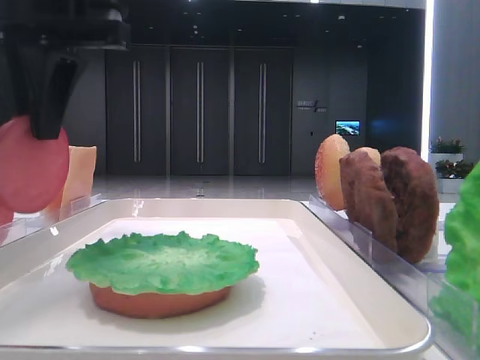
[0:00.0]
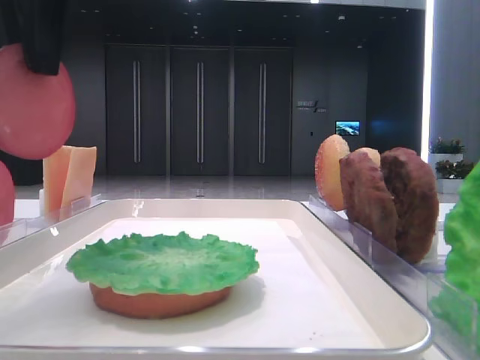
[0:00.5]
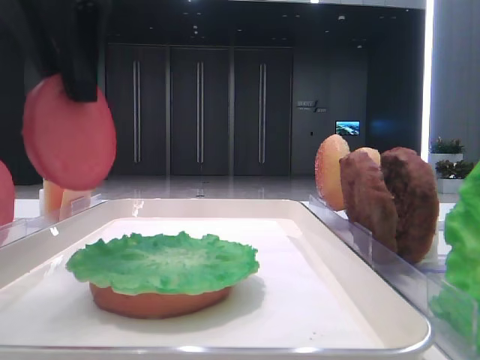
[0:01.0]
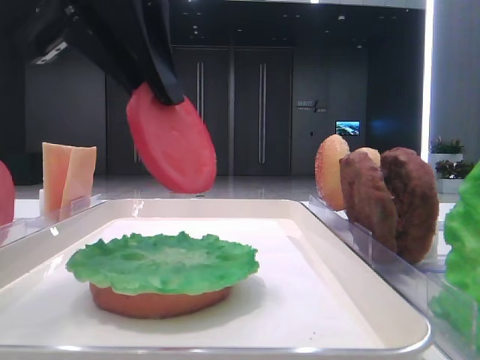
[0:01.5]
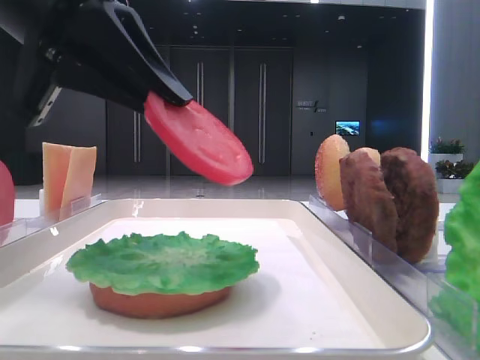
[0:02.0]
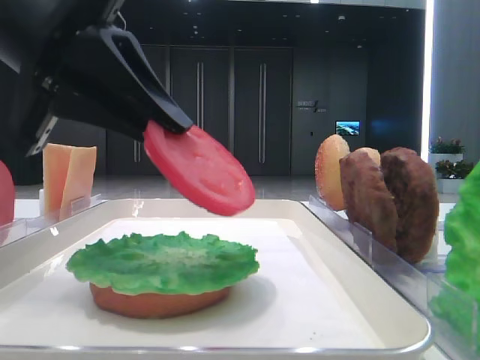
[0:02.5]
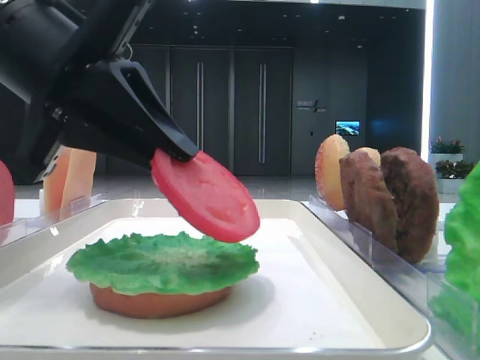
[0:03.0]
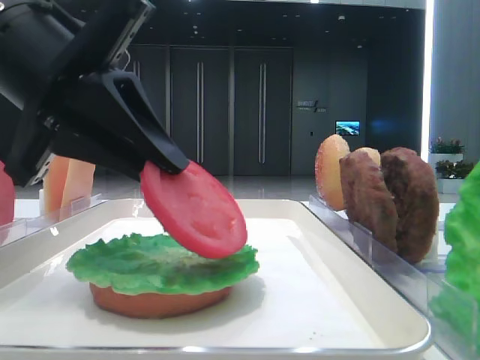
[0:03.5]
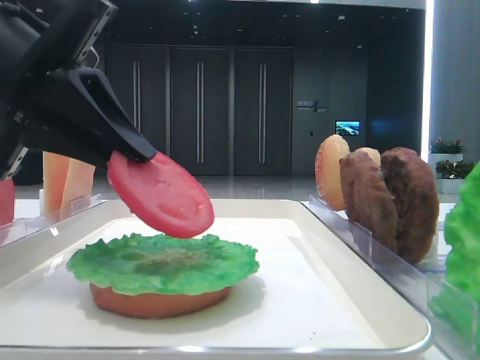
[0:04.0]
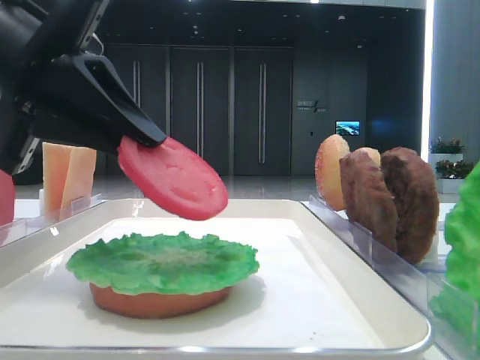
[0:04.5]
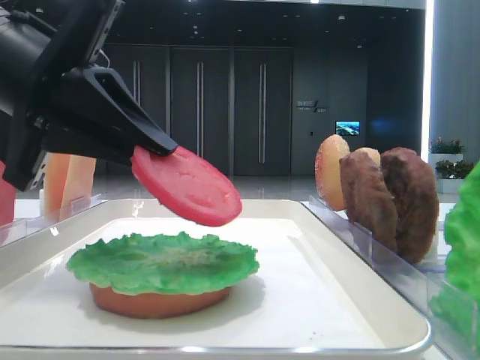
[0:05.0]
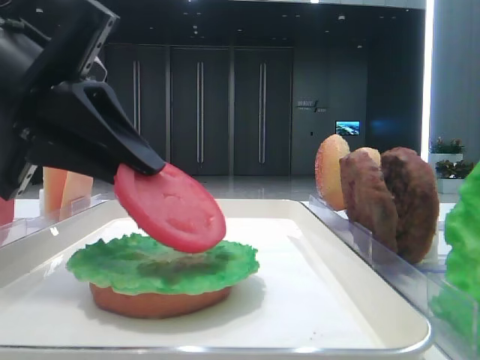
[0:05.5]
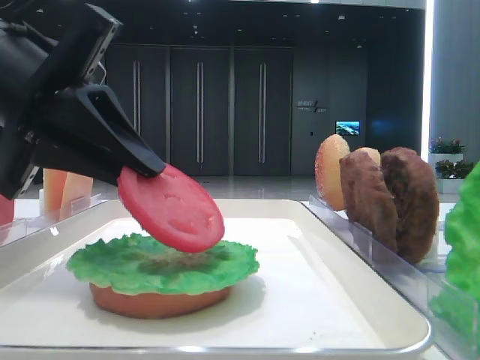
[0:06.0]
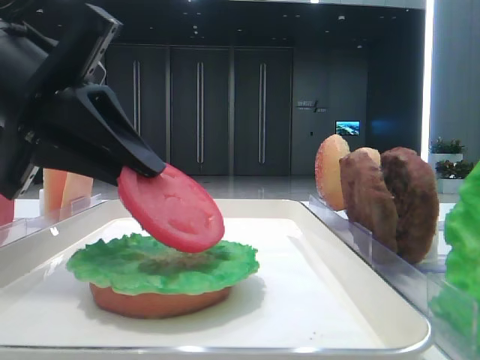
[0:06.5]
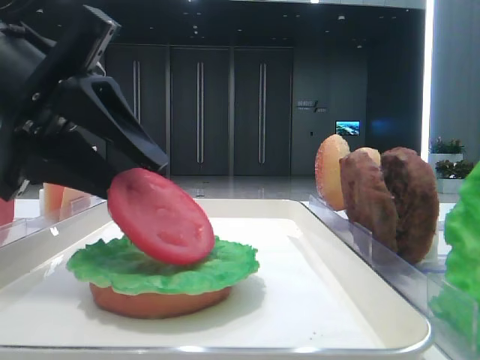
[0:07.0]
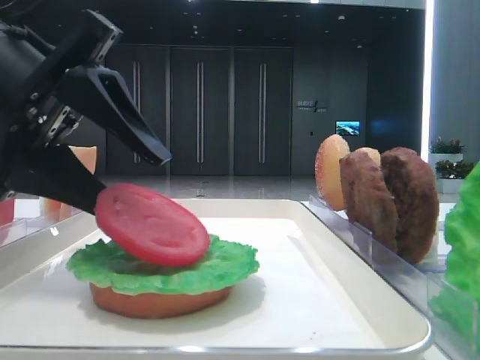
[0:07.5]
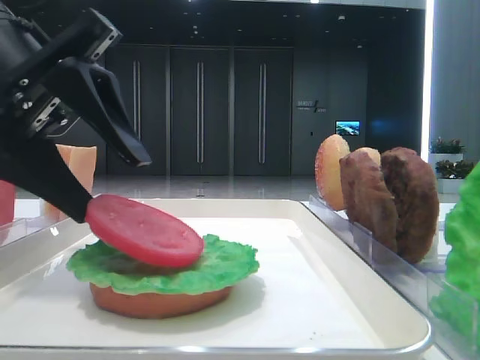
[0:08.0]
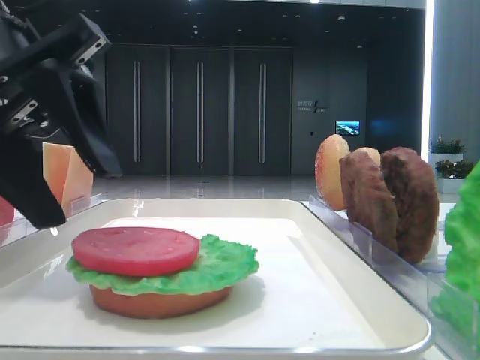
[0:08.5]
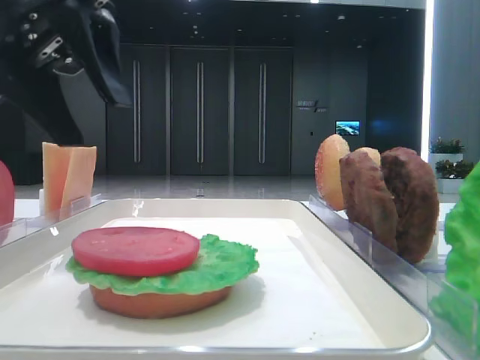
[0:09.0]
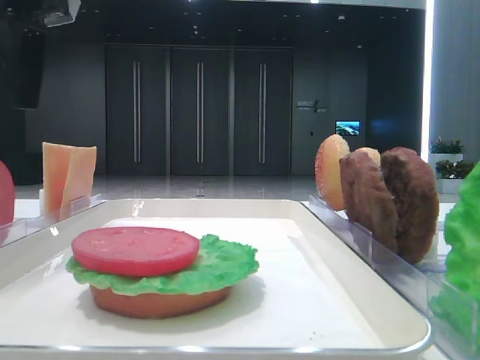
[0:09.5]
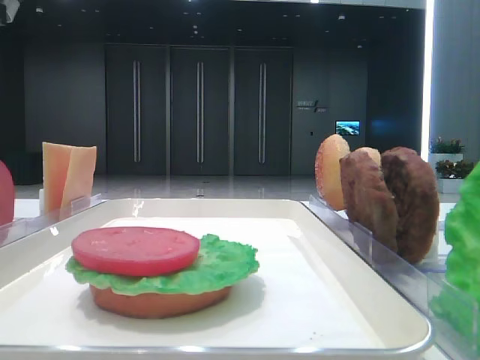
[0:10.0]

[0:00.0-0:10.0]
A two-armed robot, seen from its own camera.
Step, 0:00.0 to 0:08.0: Place the tomato slice on the lettuce leaf with the left hand.
0:00.0 to 0:02.0: The left gripper is displaced backward by approximately 5 cm.
0:02.0 to 0:06.0: The grippers move only a little.
0:06.0 to 0:08.0: The left gripper opens up.
0:08.0 to 0:10.0: The left gripper shifts some 15 cm upward, to the left and forward.

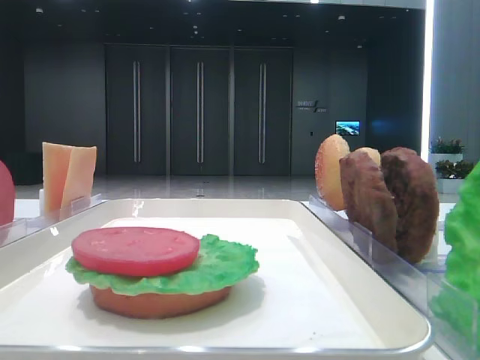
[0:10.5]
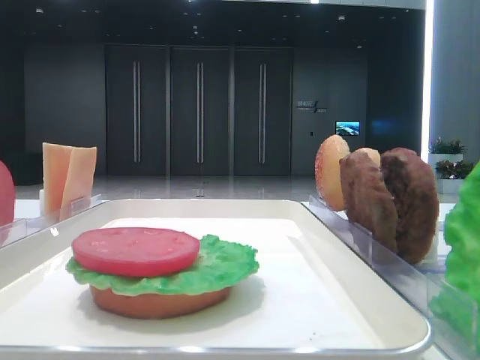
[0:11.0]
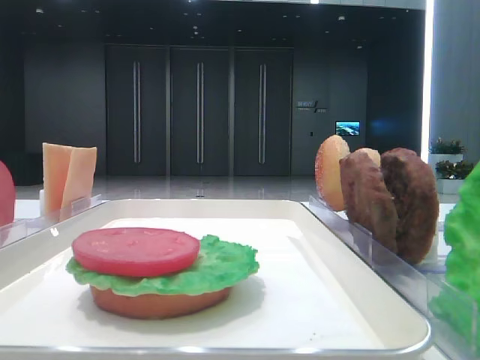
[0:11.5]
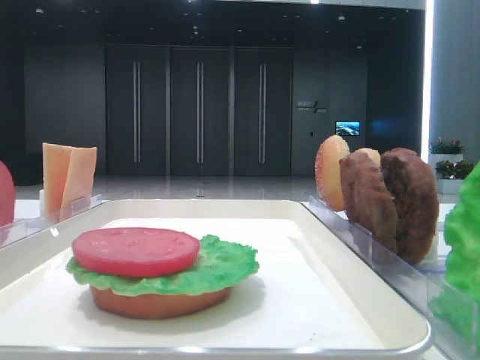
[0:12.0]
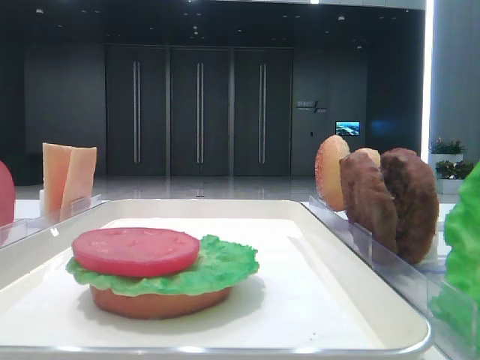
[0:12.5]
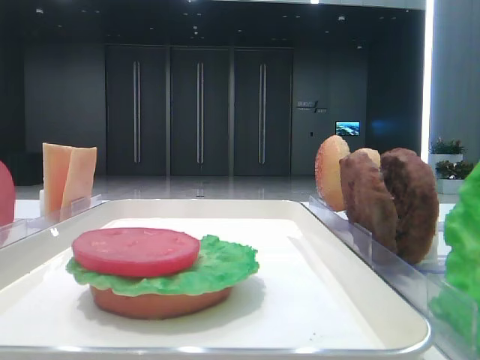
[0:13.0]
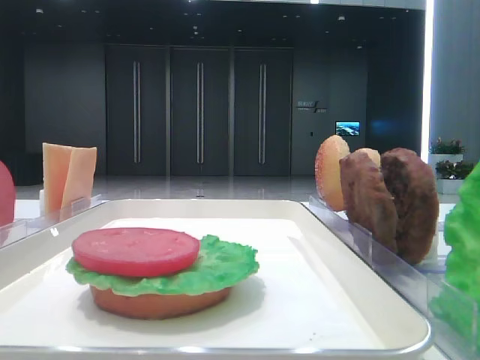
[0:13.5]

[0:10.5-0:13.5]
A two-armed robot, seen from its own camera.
0:12.0 to 0:13.5: Both grippers stay about where they are.

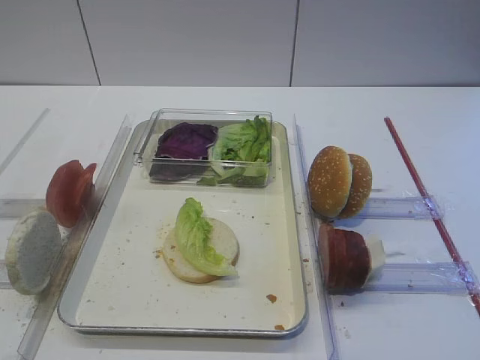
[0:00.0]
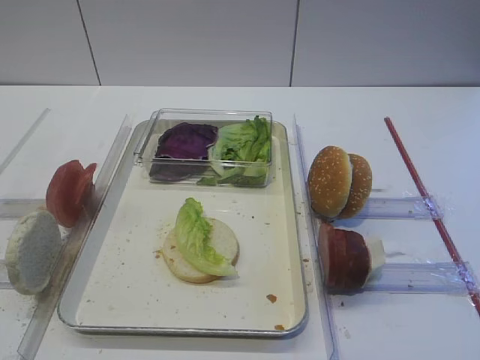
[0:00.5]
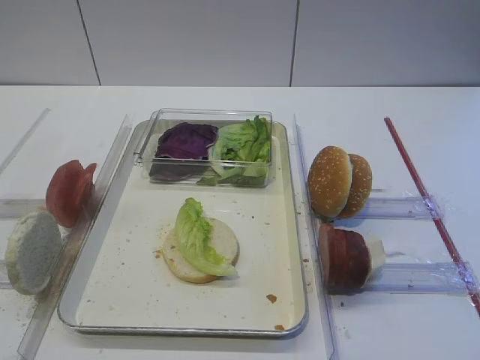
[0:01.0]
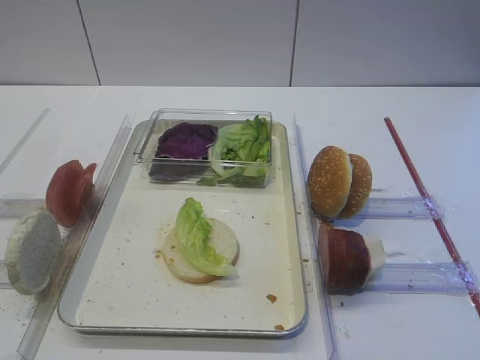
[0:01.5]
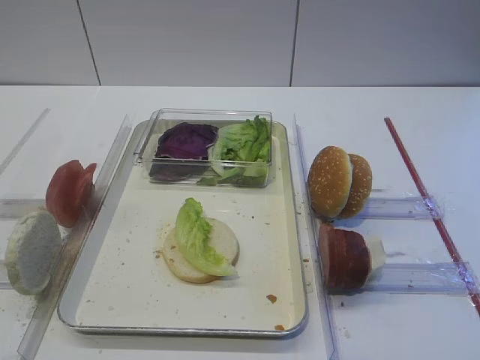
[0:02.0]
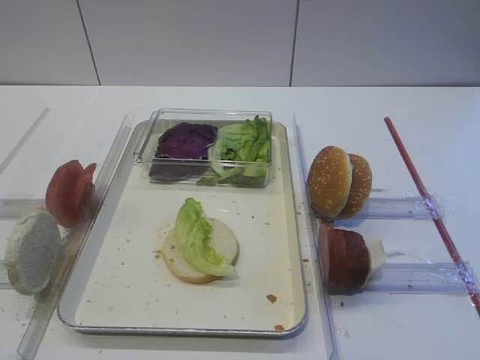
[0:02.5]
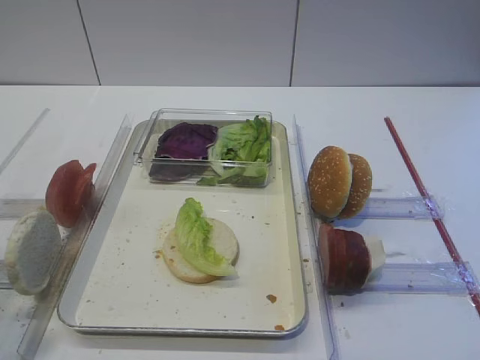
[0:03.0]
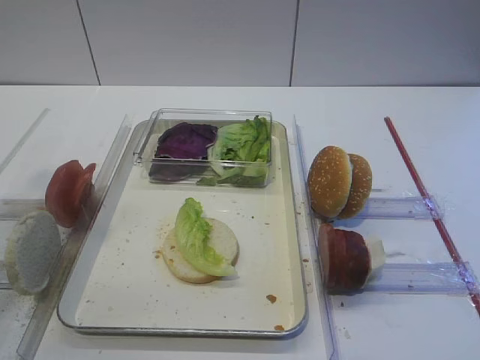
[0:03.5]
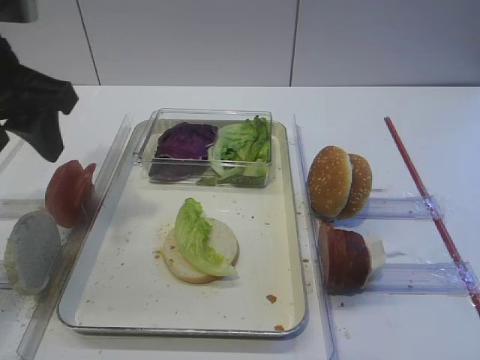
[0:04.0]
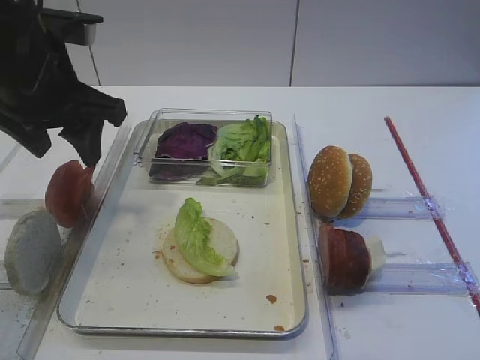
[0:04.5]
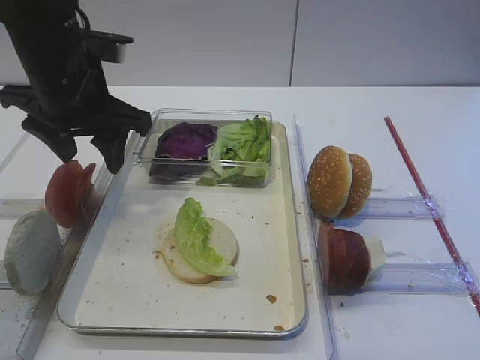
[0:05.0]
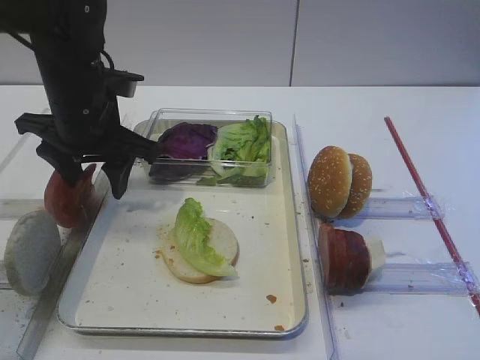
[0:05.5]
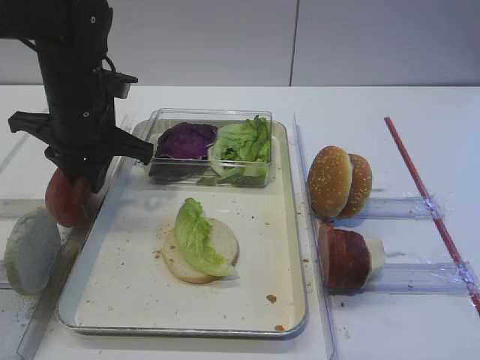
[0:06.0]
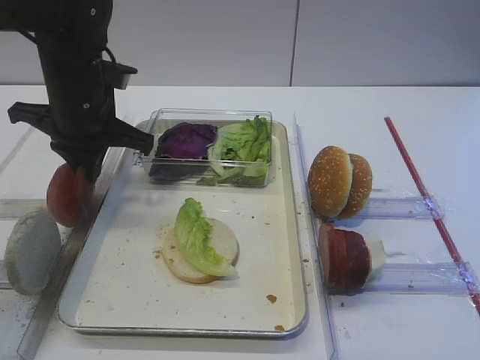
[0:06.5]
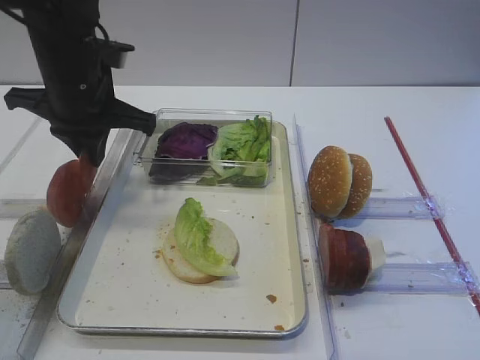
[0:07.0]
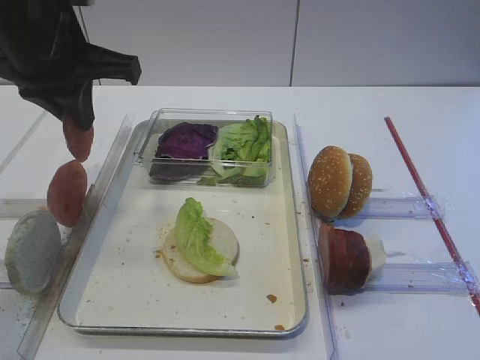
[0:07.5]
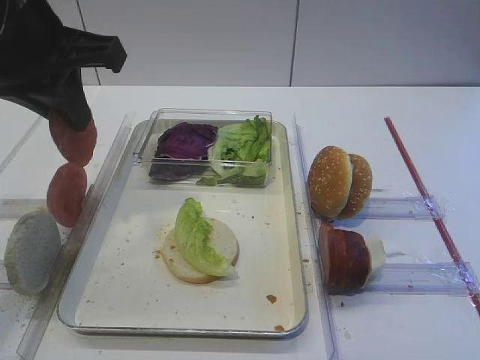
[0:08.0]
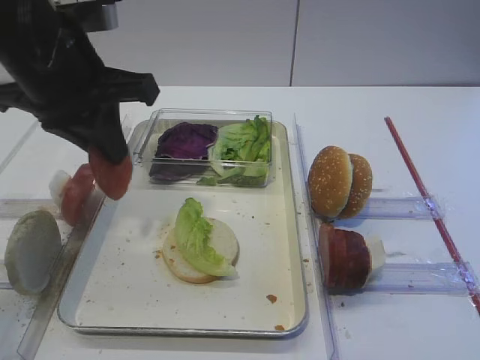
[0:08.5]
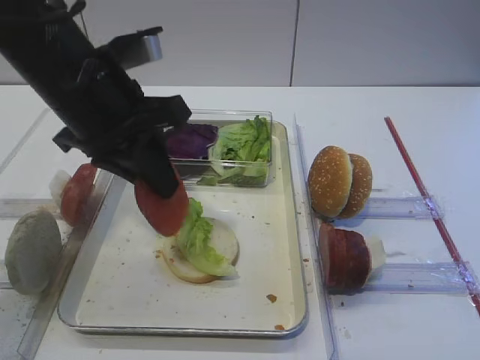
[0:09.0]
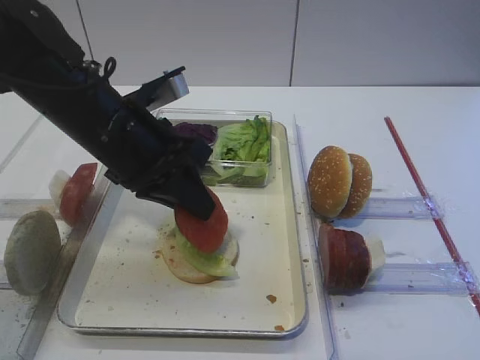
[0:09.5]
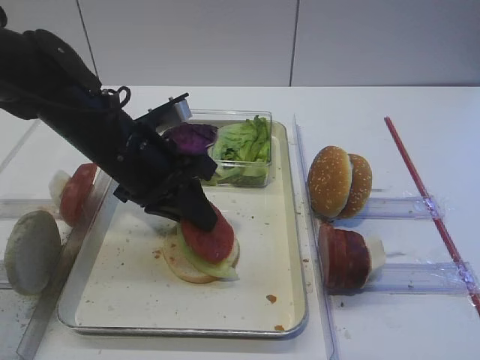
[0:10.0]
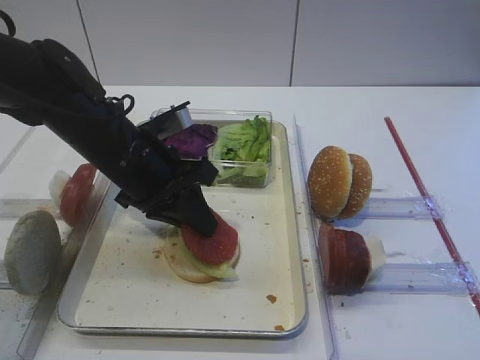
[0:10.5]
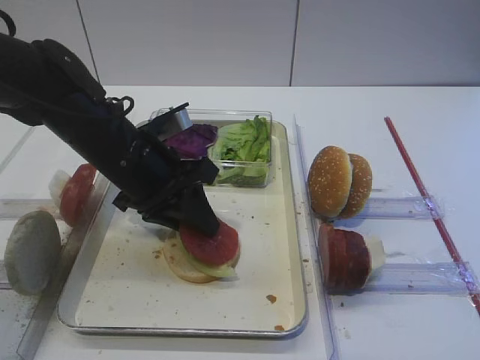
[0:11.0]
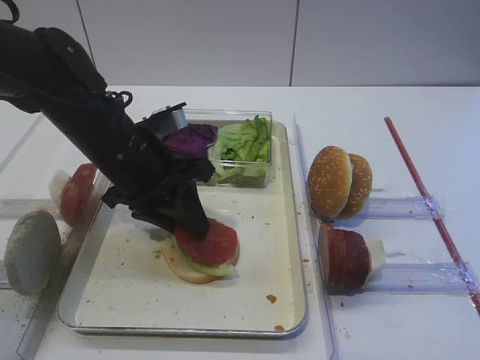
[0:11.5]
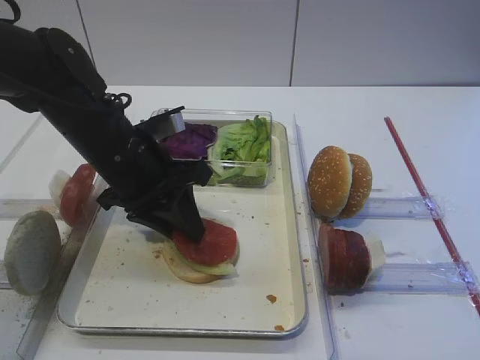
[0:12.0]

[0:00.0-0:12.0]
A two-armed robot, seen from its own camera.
Step, 0:00.0 to 0:07.0: Pick up the tomato slice with the left gripper.
0:02.0 to 0:04.0: The left gripper goes about 25 cm forward.
0:04.0 to 0:06.0: The left gripper heads downward, forward and to the right, covering approximately 15 cm, and closes up.
0:06.0 to 0:08.0: The left gripper moves upward and backward, about 15 cm, and closes.
0:08.0 to 0:10.0: The left gripper moves downward and to the right, approximately 15 cm.
0:10.0 to 0:12.0: The grippers make only small movements.

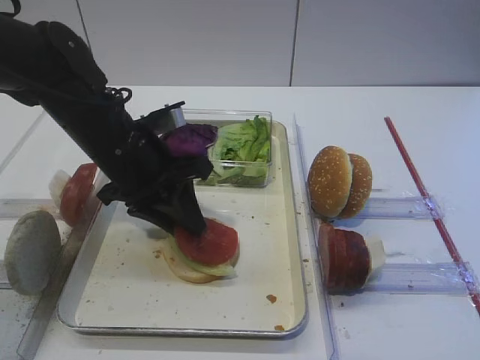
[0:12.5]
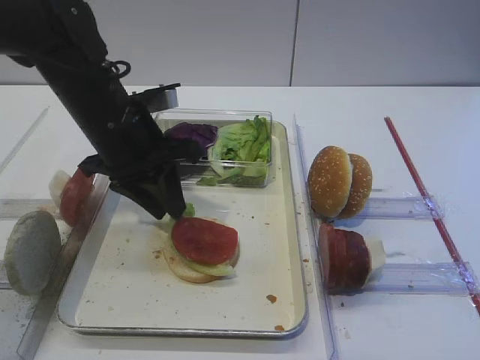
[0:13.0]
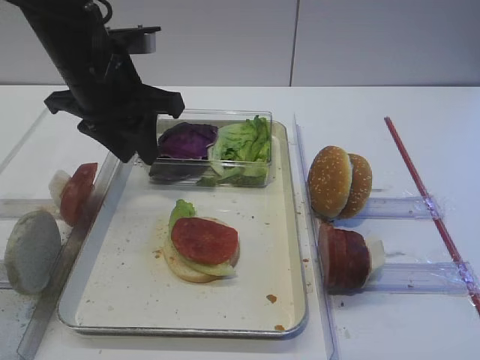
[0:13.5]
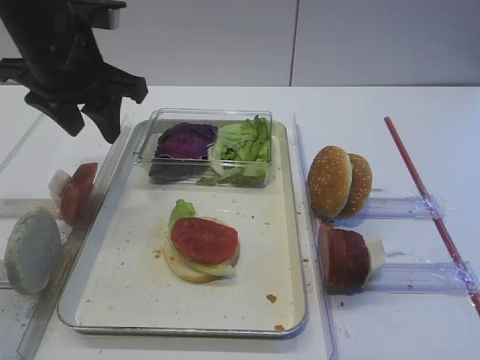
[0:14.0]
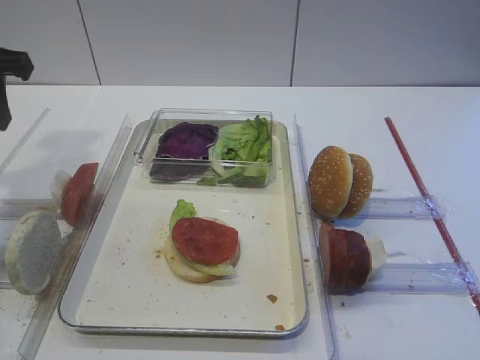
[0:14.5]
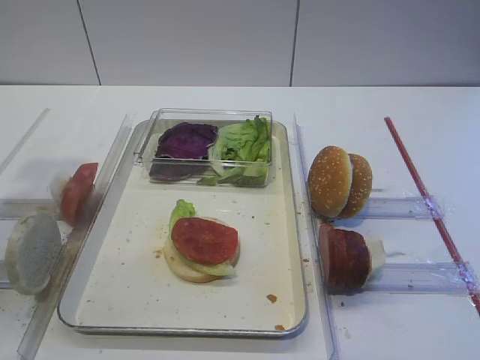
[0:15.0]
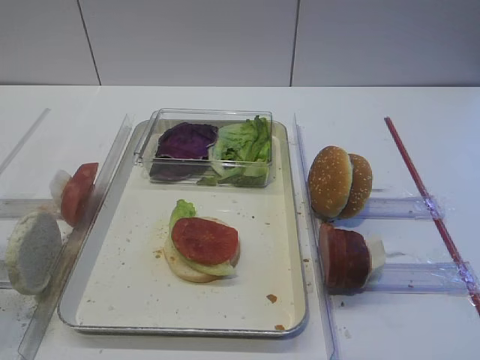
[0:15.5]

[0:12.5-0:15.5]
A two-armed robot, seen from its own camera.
0:12.5 to 0:14.0: The left gripper travels upward and to the left by some 10 cm, and opens up.
0:14.0 to 0:15.5: The left gripper is displaced backward and to the left by some 25 cm.
